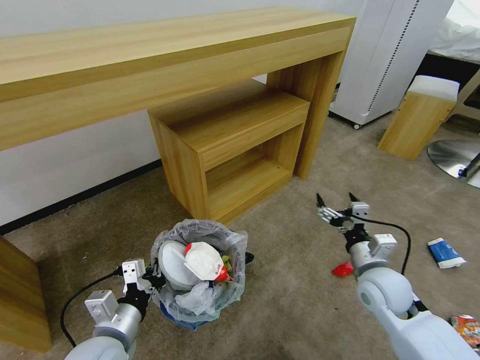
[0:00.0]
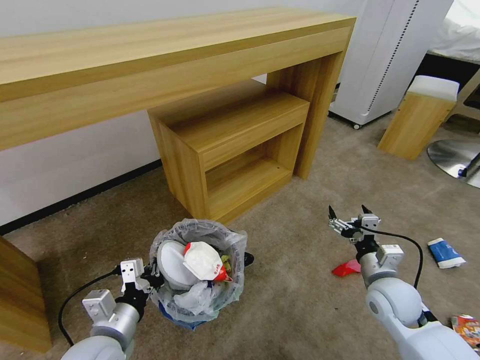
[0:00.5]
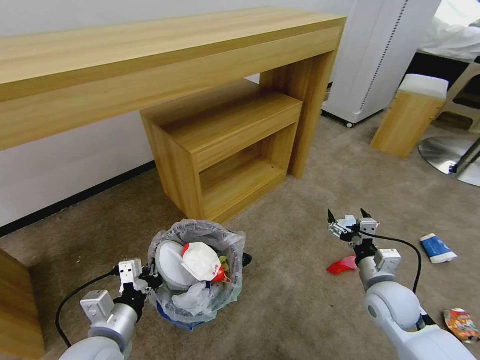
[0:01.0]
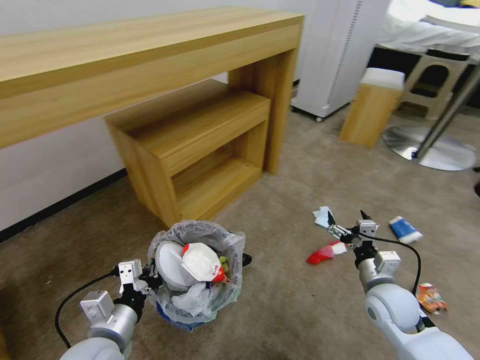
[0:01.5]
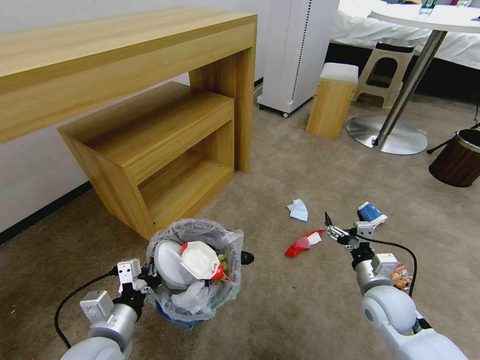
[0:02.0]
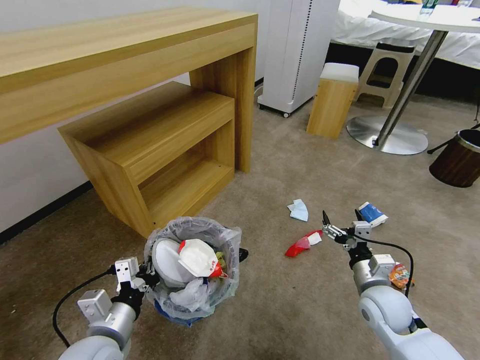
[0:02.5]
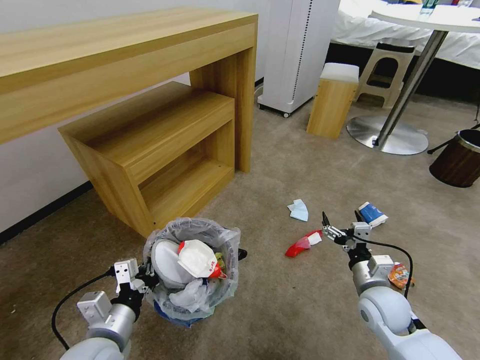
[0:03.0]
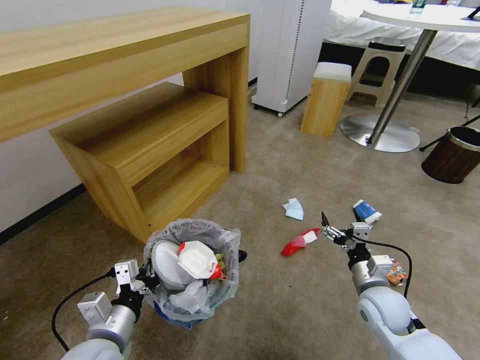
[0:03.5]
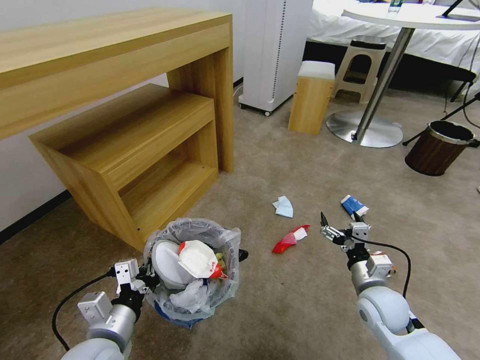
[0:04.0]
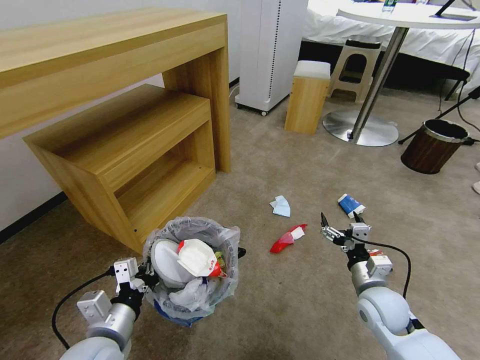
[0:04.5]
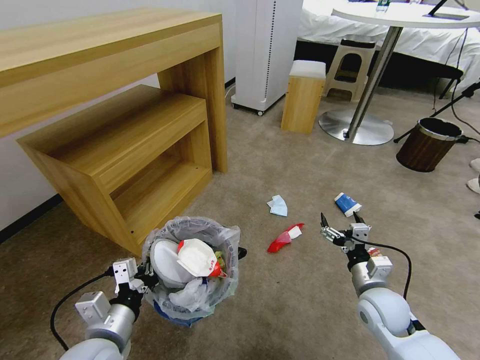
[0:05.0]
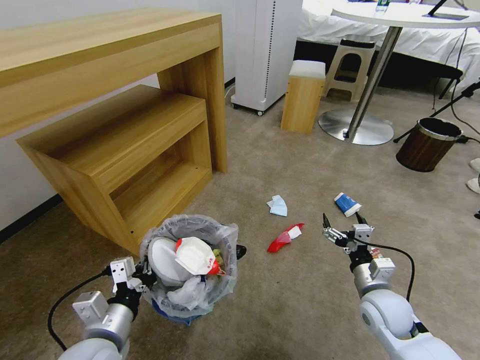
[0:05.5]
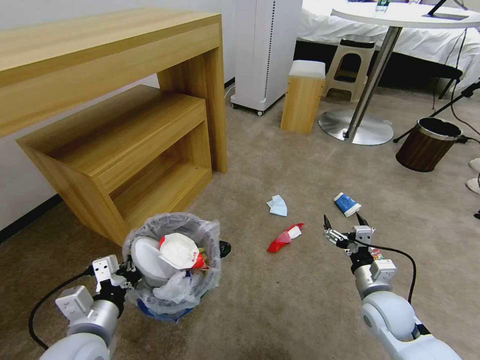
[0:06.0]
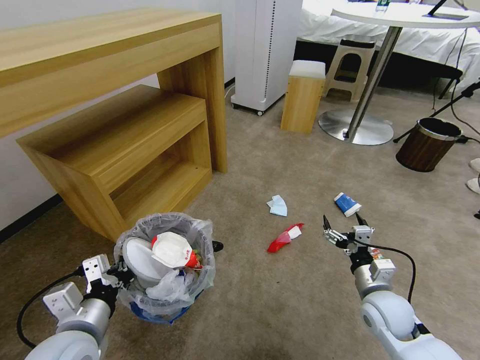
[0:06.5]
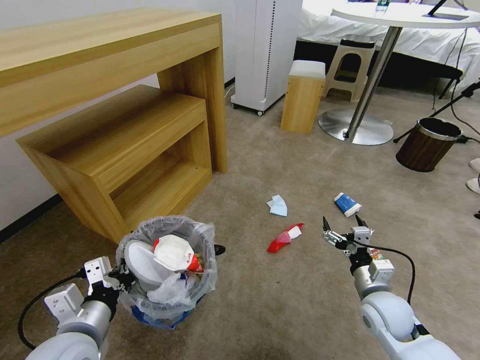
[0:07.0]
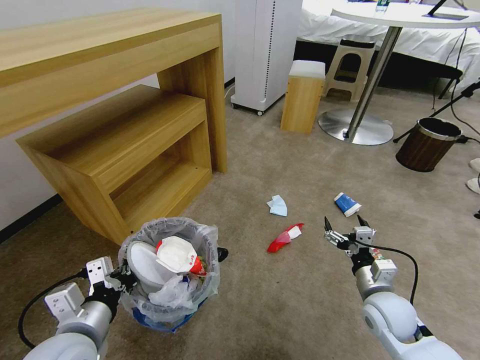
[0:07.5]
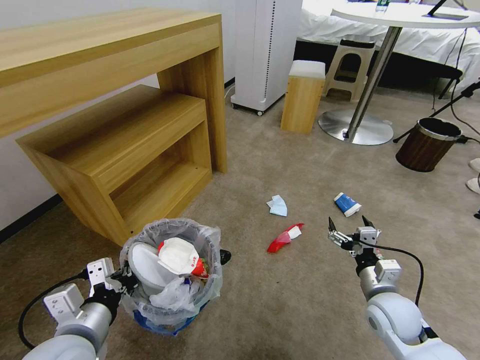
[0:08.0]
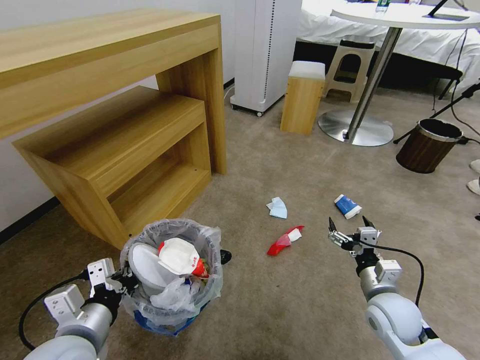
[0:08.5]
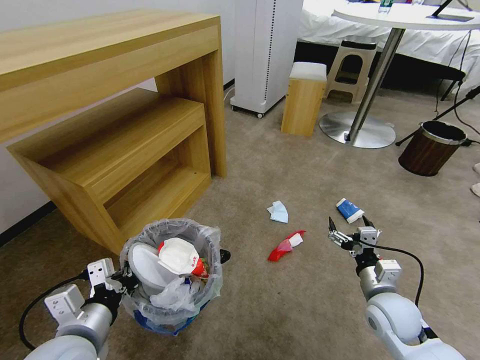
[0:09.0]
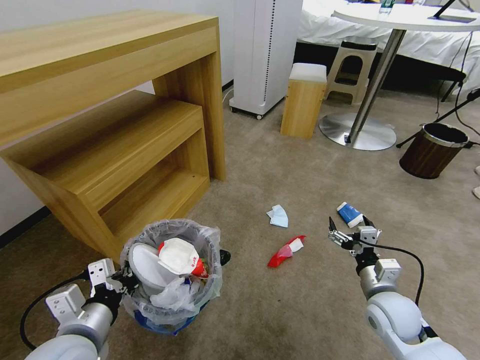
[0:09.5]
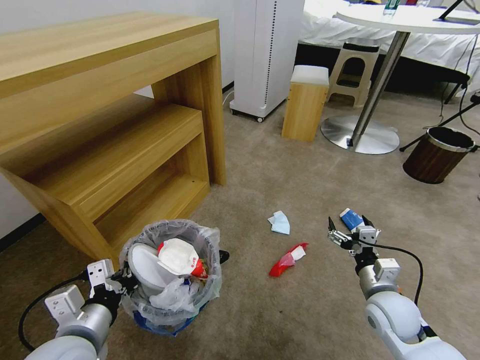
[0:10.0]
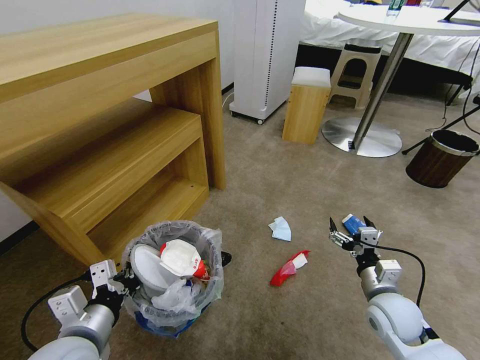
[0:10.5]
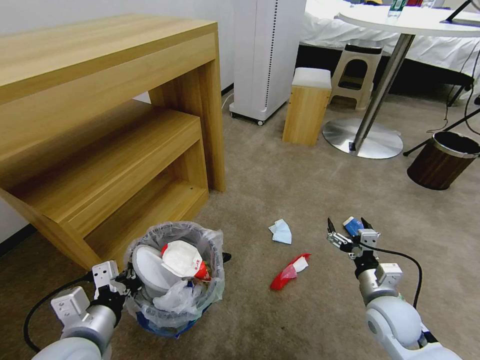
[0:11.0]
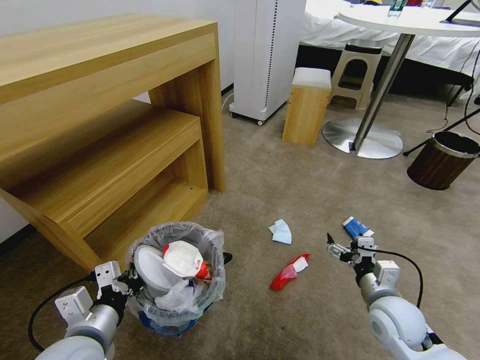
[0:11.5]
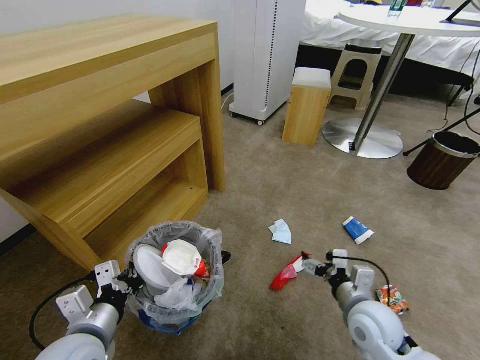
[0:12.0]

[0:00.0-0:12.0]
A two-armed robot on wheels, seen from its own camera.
Task of the whole recording: Pick up the trash bin and place the garbage on the floor into it.
0:00.0 to 0:02.0: The right gripper goes roughly 5 cm downward.
0:06.0 to 0:08.0: The grippers move only a little.
0:10.0 to 0:12.0: The right gripper moves some 5 cm.

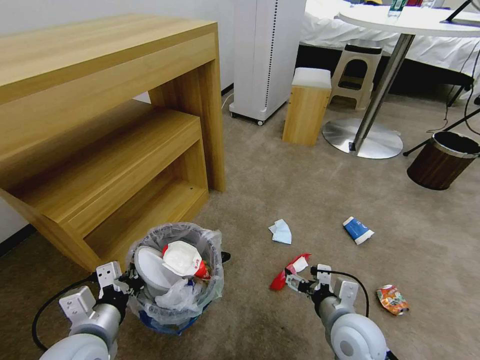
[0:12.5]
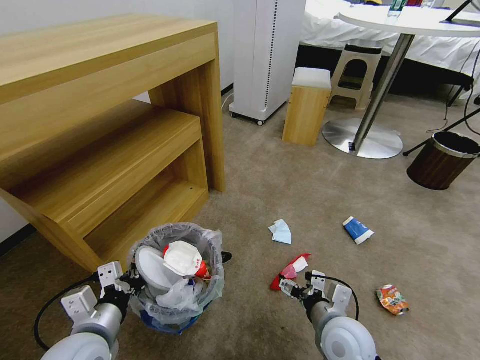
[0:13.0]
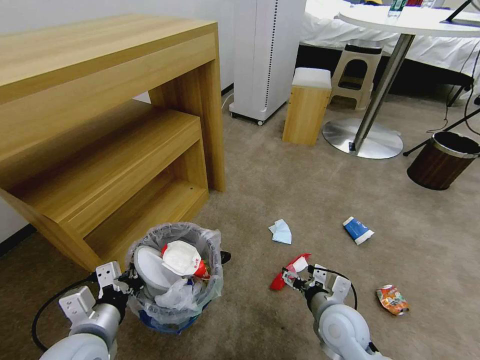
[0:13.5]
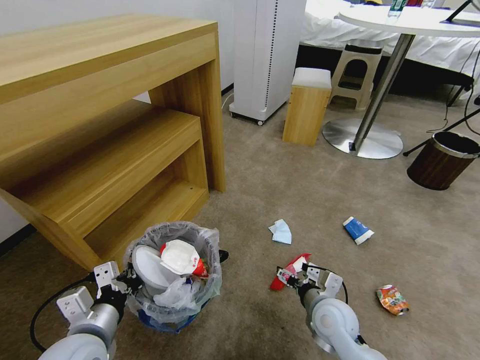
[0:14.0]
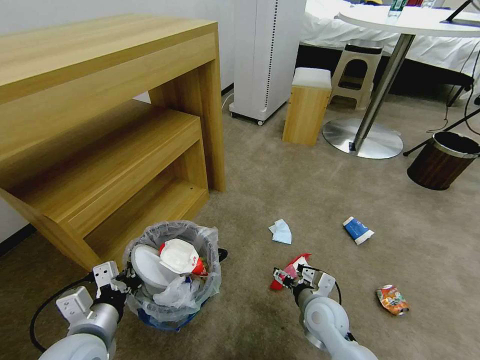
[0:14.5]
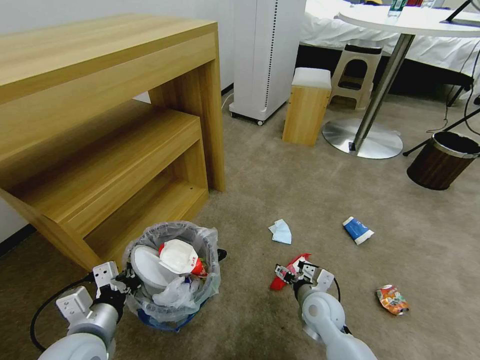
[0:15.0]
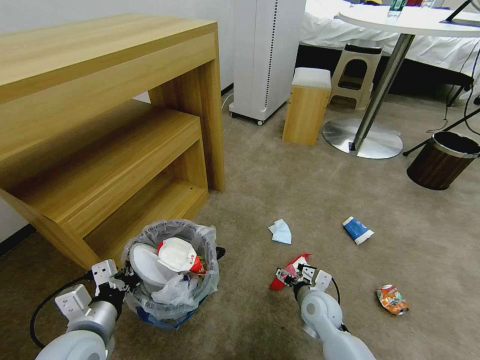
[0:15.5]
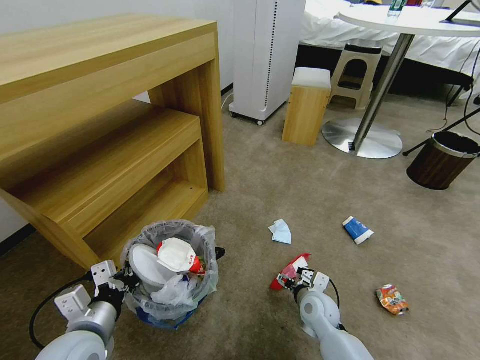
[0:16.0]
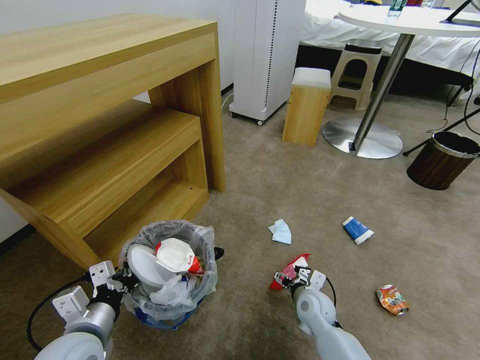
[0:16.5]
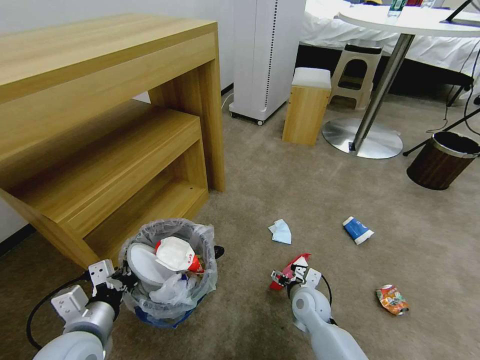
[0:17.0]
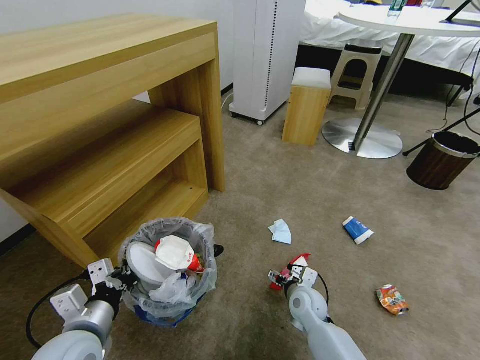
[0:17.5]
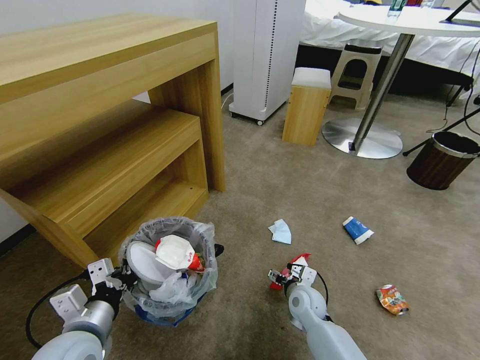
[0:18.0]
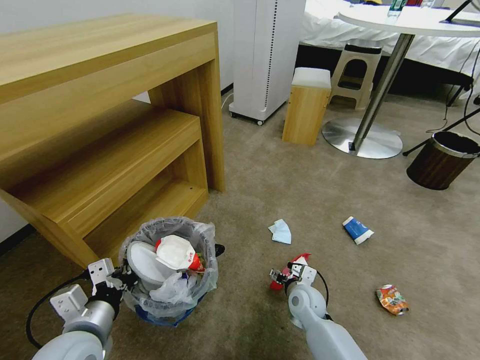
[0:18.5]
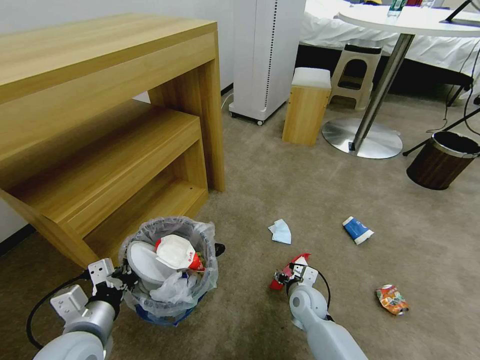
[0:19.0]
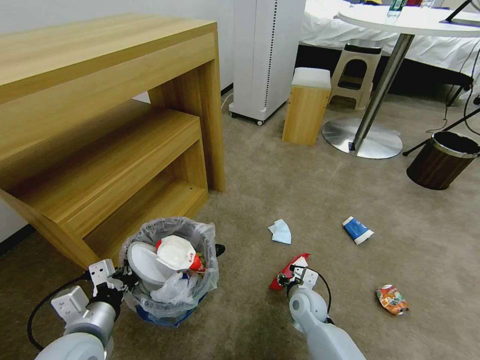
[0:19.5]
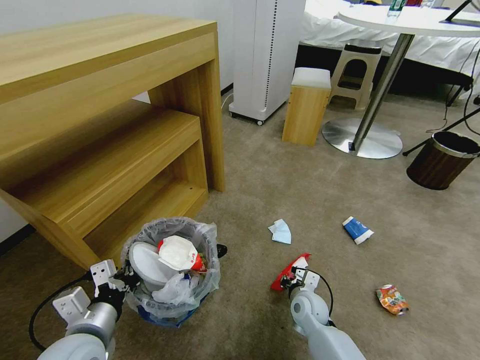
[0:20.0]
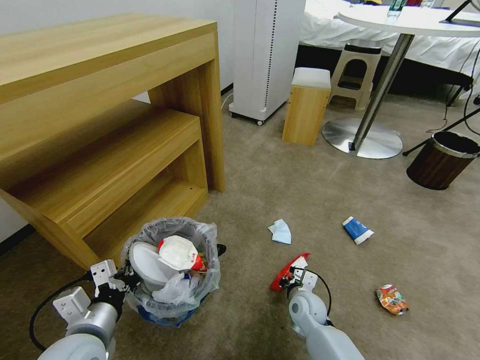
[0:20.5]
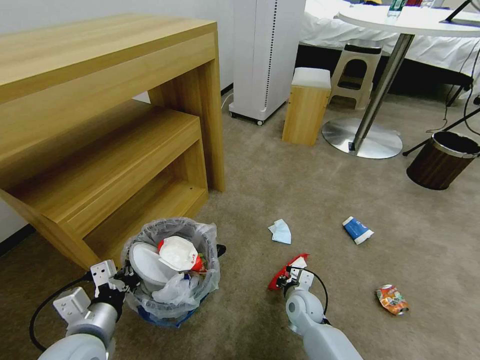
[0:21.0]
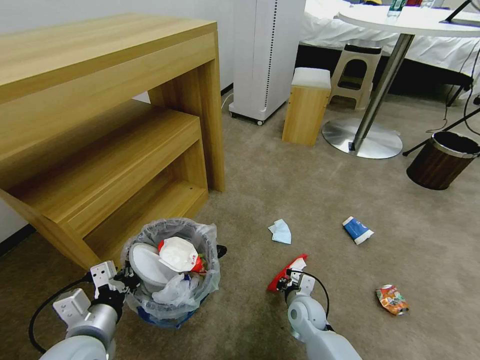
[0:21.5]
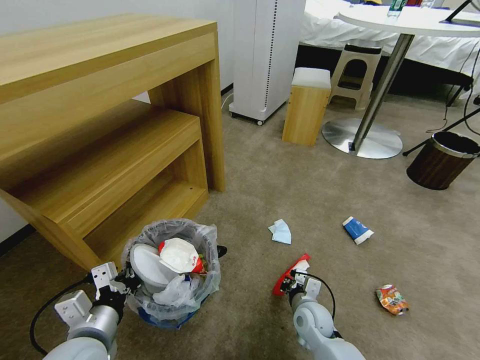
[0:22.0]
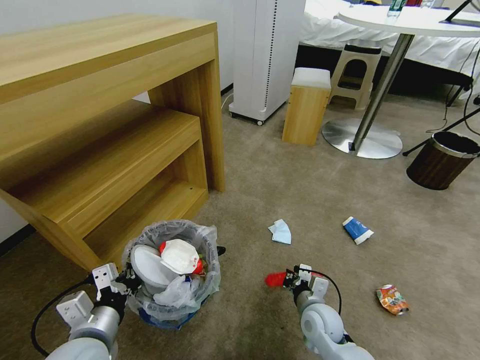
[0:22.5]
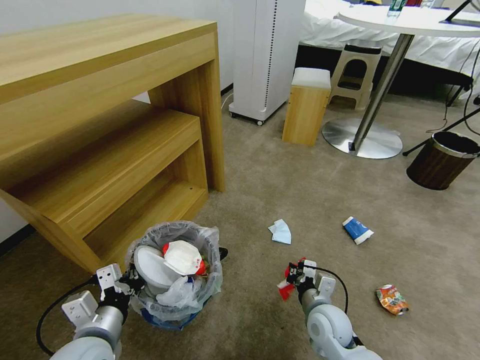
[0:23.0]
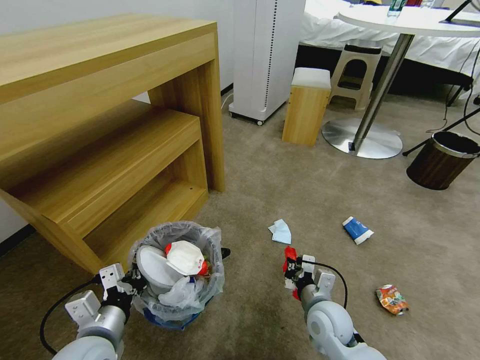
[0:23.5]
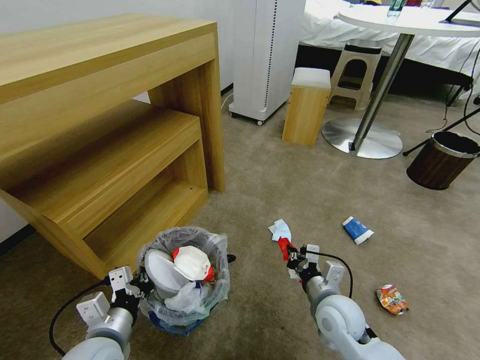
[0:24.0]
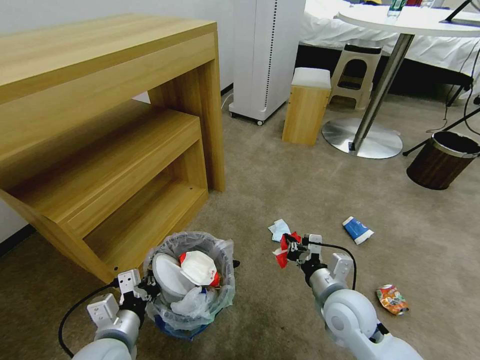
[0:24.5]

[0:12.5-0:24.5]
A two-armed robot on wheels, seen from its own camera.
Task of the whole recording: Pick up the trash bin and place the garbage on the floor into it.
0:12.5 to 0:14.5: The right gripper travels downward and forward by some 10 cm.
0:14.5 to 0:16.5: The right gripper travels downward by approximately 5 cm.
0:16.5 to 0:18.5: The grippers move only a little.
0:18.5 to 0:20.5: The right gripper closes.
0:20.5 to 0:22.5: The right gripper shifts by about 5 cm.
0:22.5 to 0:24.5: The right gripper shifts some 10 cm upward.

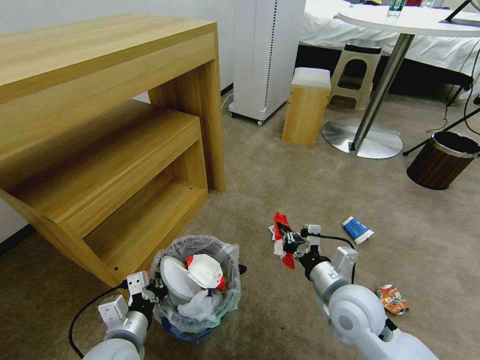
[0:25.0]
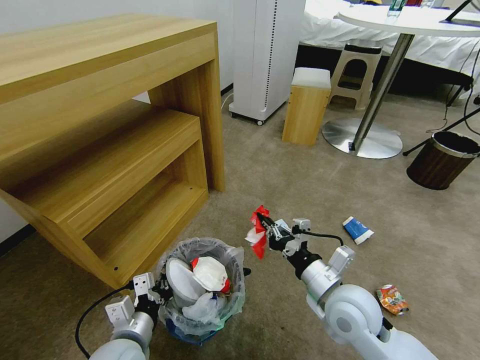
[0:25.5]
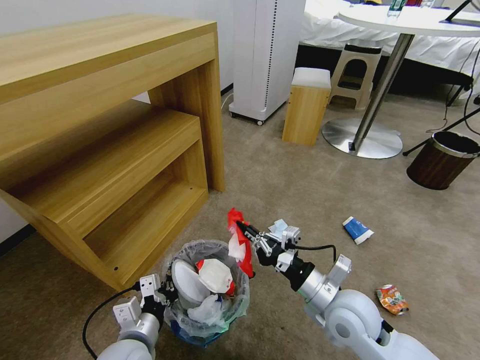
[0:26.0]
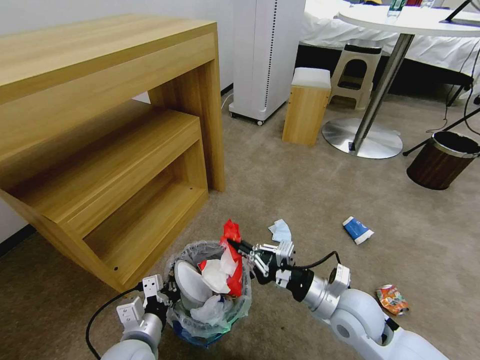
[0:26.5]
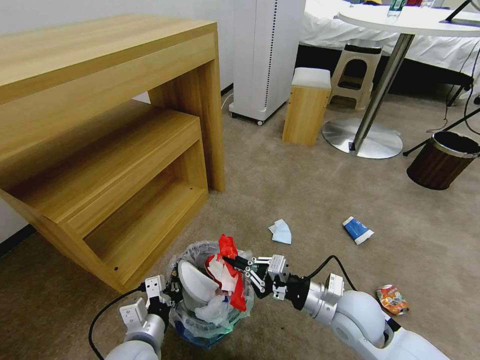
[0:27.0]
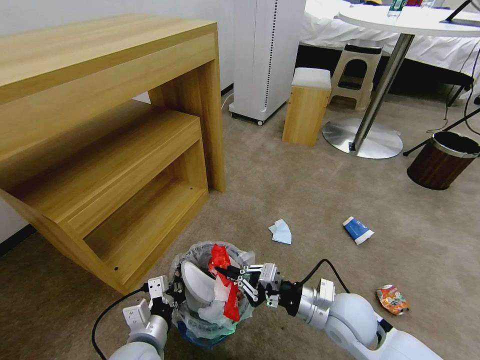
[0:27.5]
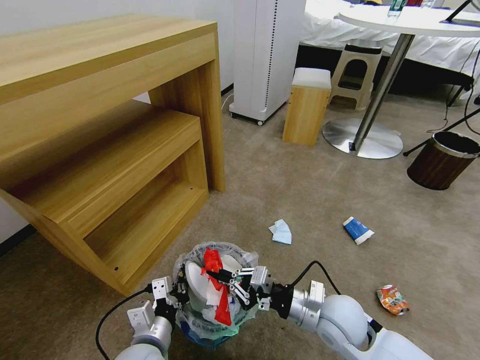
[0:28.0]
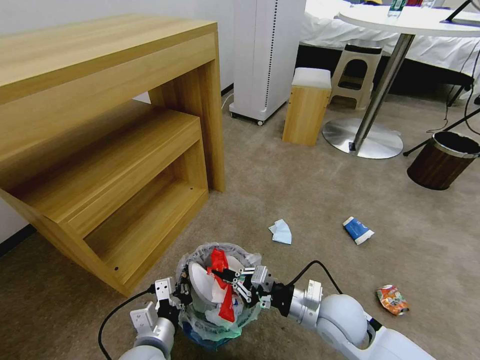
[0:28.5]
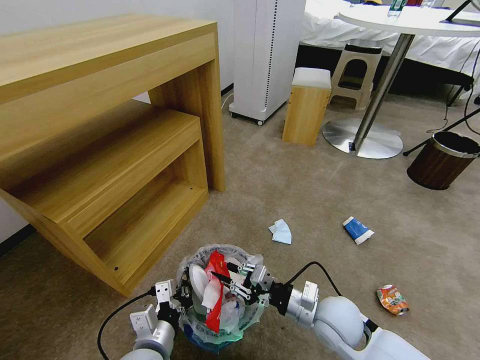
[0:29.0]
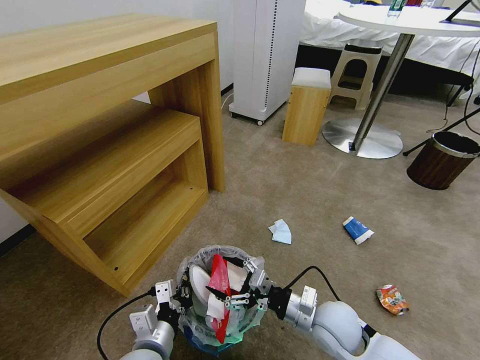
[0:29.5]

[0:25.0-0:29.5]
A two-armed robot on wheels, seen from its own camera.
Task of the whole recording: Pick up the trash bin and place the garbage on the floor into it.
0:27.0 to 0:29.5: The right gripper changes place by some 5 cm, and opens up.
